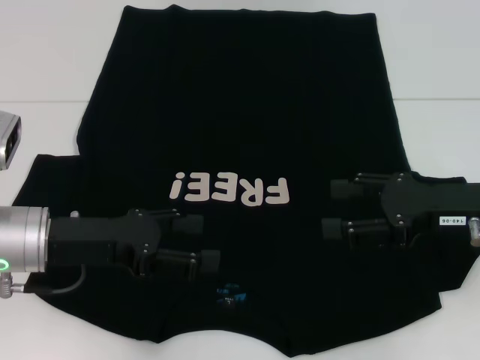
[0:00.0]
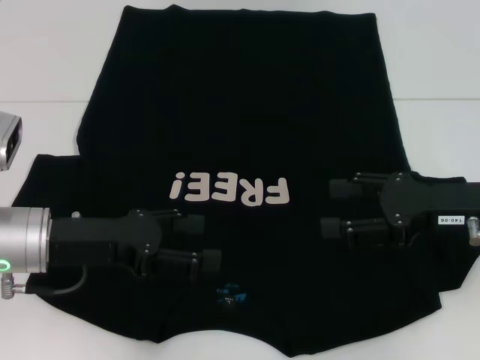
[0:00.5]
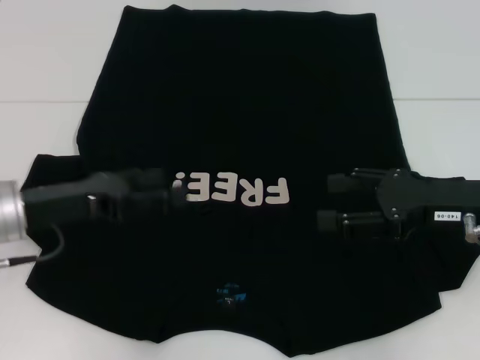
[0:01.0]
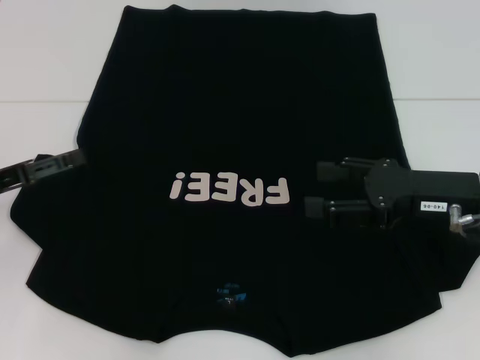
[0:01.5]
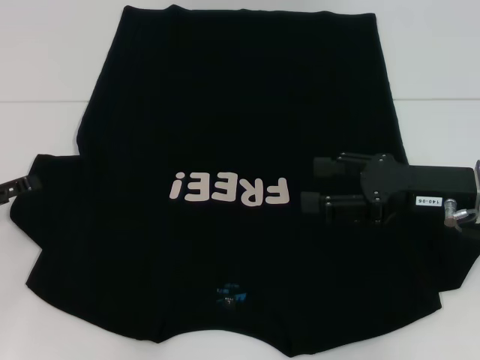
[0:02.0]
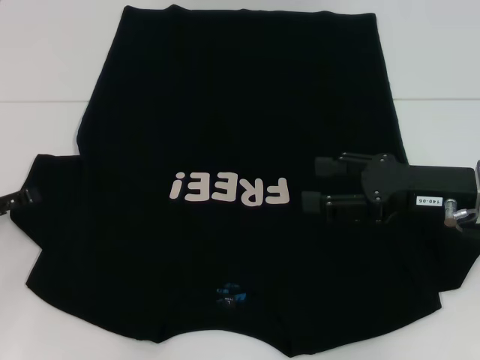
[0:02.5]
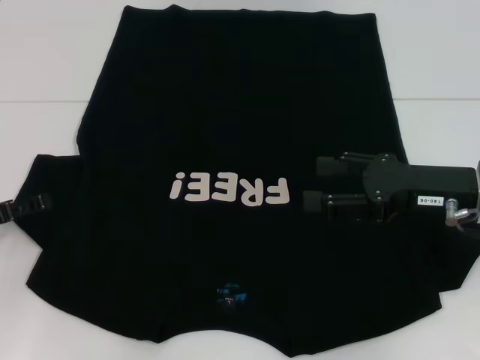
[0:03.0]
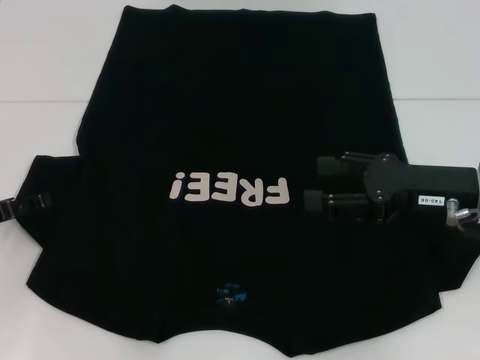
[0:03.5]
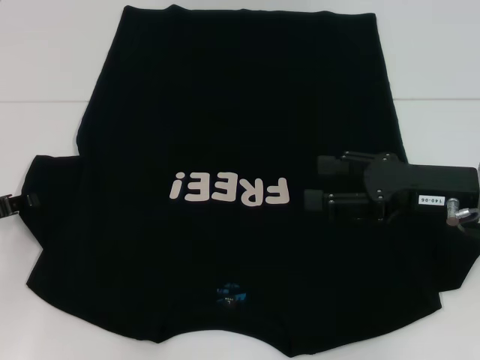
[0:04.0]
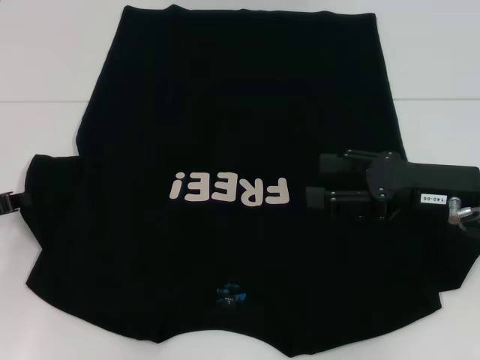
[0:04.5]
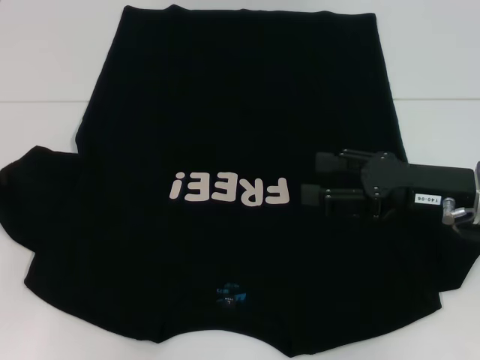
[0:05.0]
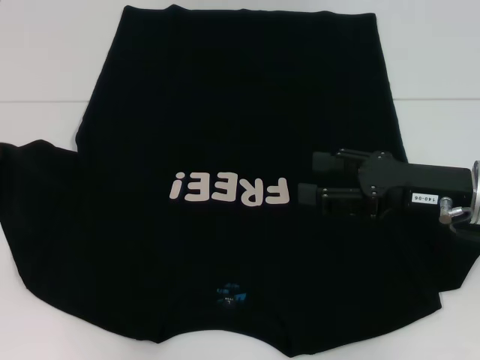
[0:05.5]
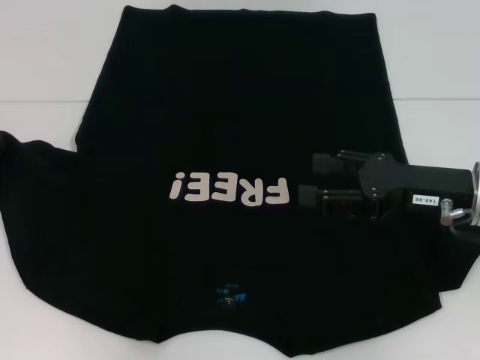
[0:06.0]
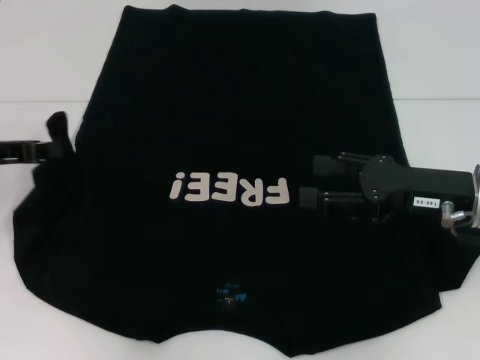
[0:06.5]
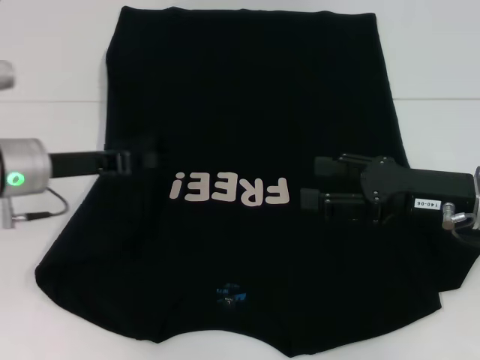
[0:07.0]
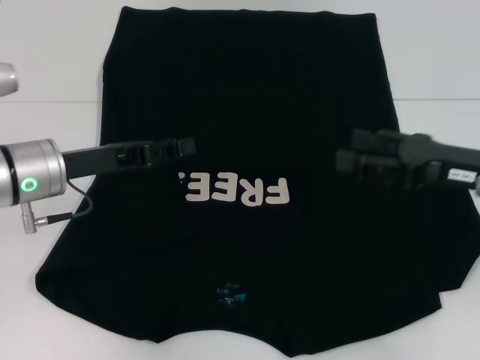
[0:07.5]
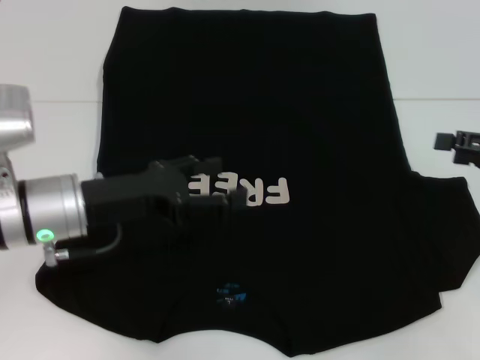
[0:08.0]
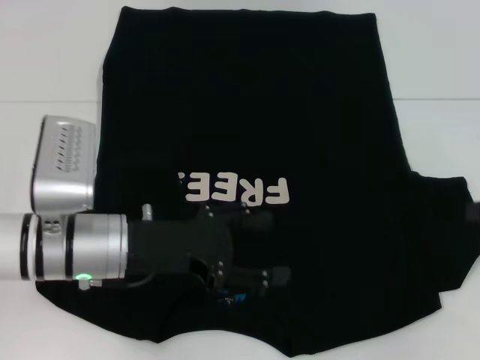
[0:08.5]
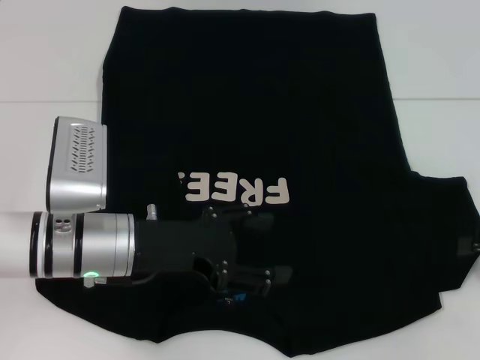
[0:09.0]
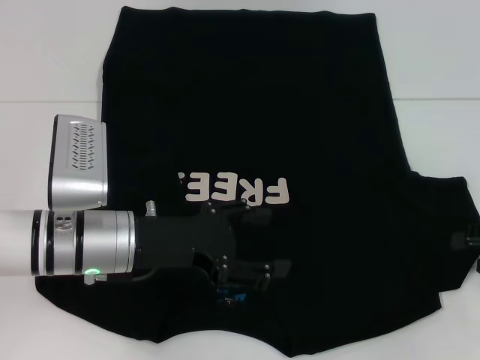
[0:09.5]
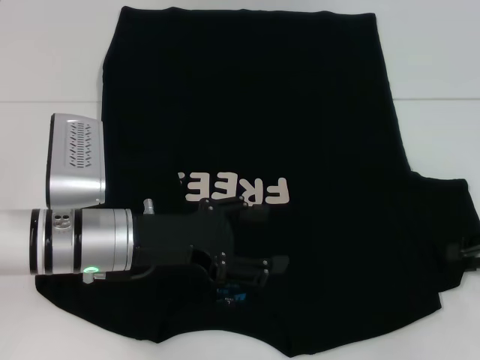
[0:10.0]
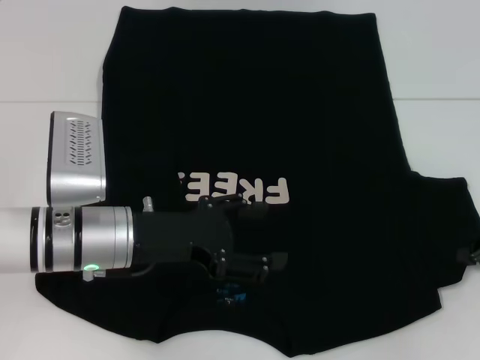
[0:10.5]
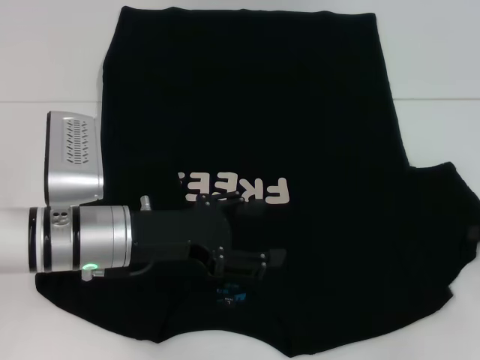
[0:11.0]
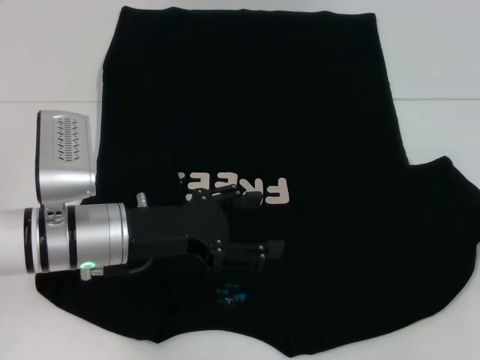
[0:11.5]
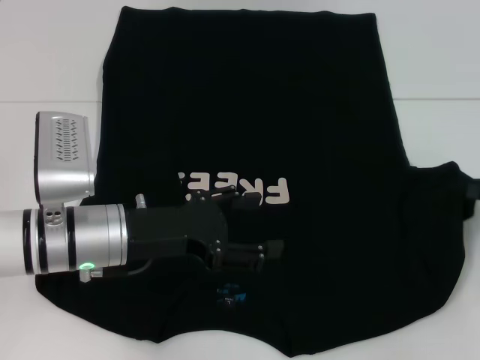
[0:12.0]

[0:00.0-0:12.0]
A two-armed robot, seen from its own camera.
Step, 0:00.0 to 0:08.5: Fold the bottom left sleeve with your left hand.
0:00.0 to 0:02.0: The left gripper heads to the left, covering approximately 15 cm.
0:02.0 to 0:04.0: The grippers stay close to where they were, moving slightly.
0:04.0 to 0:06.0: The left gripper moves forward, roughly 5 cm, and closes.
0:06.0 to 0:08.0: Both grippers move to the right, roughly 15 cm. The left gripper opens its fingers.
0:08.0 to 0:10.0: The right gripper moves about 5 cm.
0:10.0 to 0:12.0: The right gripper closes.

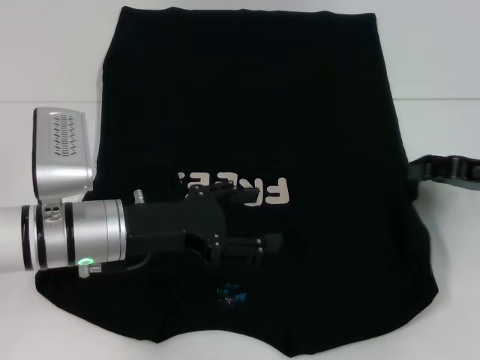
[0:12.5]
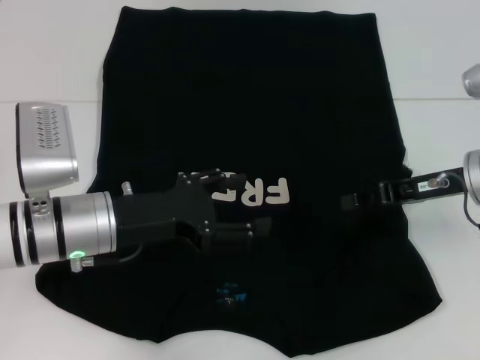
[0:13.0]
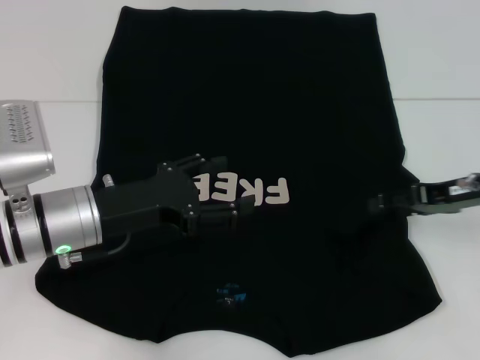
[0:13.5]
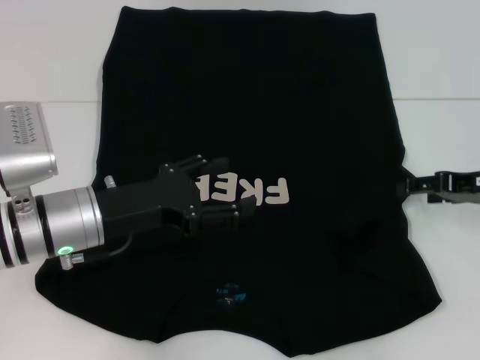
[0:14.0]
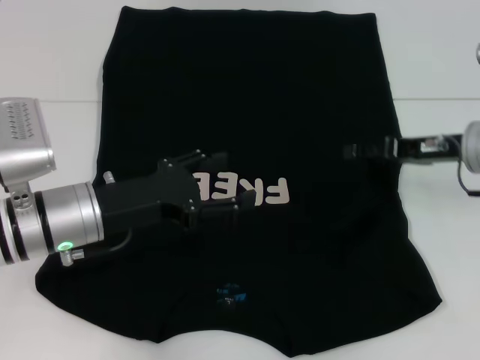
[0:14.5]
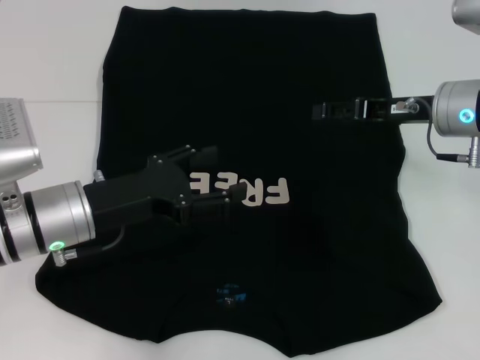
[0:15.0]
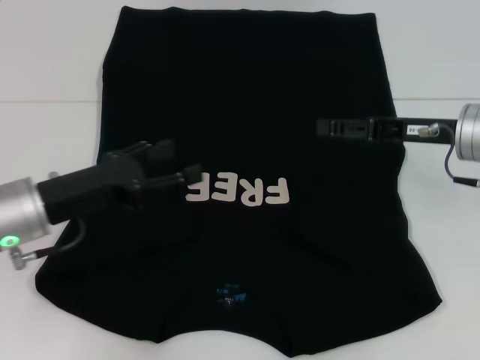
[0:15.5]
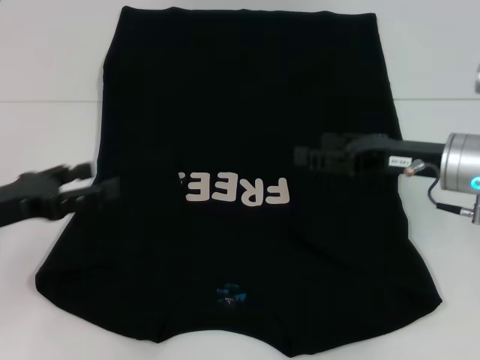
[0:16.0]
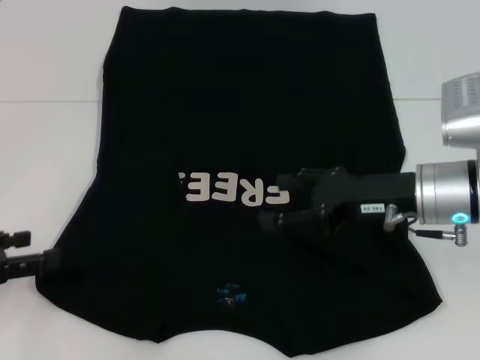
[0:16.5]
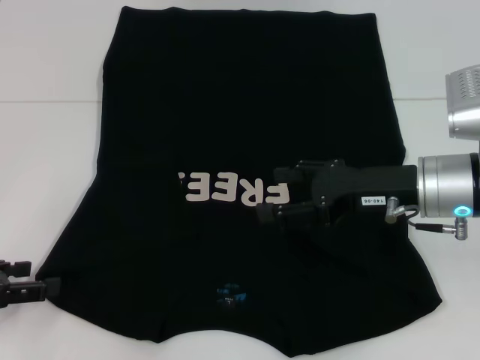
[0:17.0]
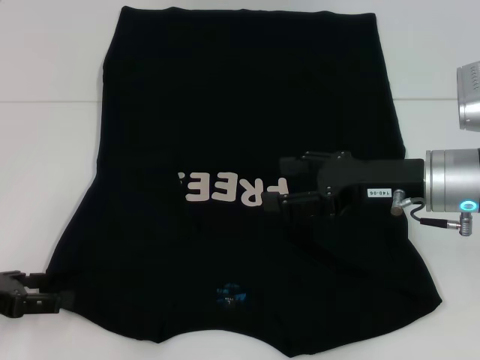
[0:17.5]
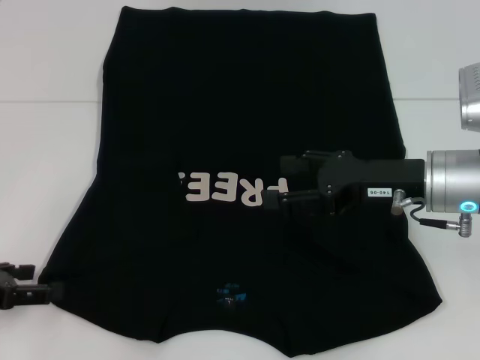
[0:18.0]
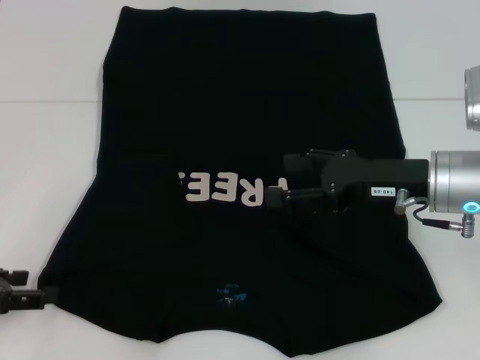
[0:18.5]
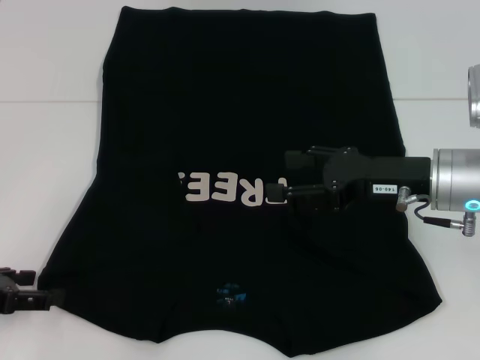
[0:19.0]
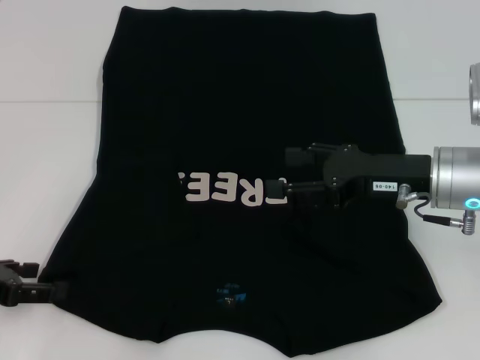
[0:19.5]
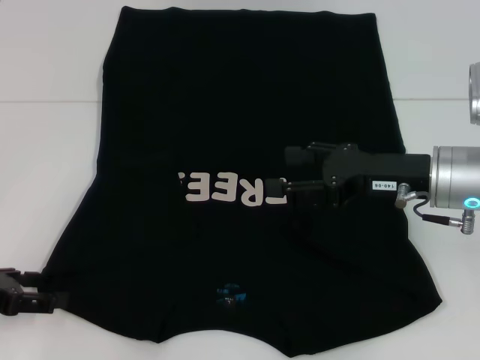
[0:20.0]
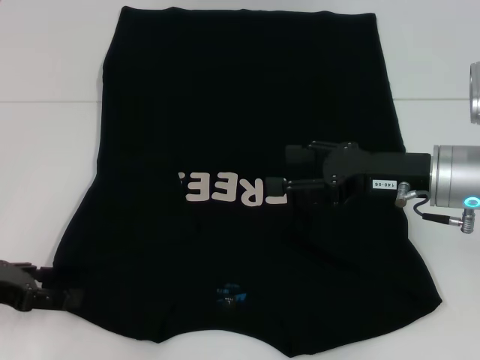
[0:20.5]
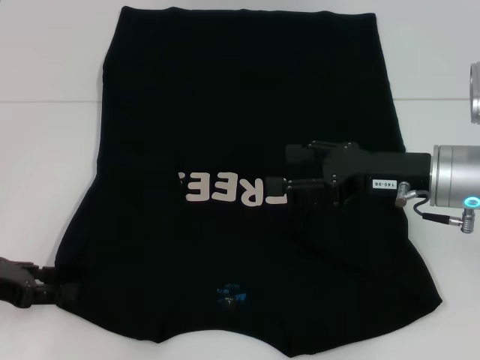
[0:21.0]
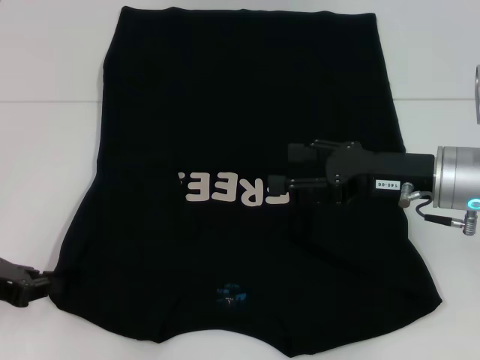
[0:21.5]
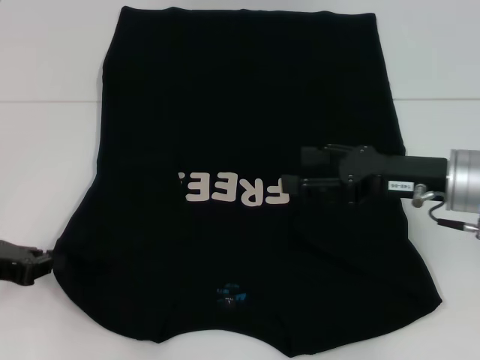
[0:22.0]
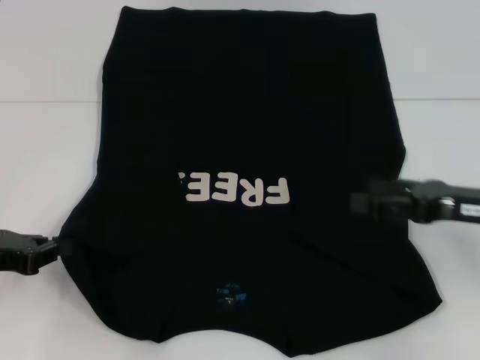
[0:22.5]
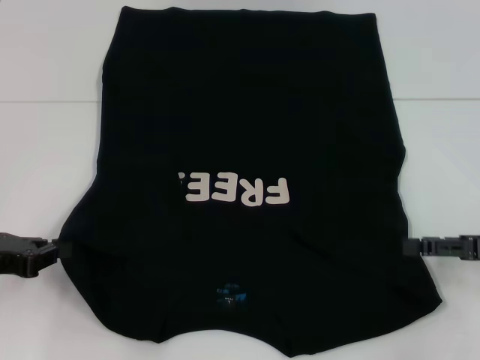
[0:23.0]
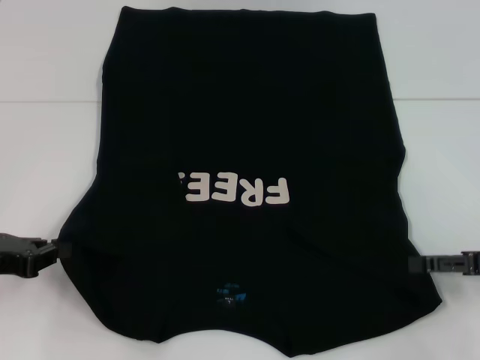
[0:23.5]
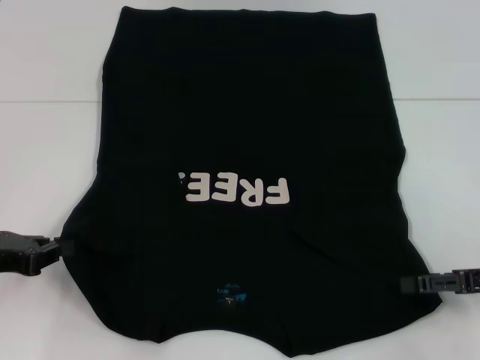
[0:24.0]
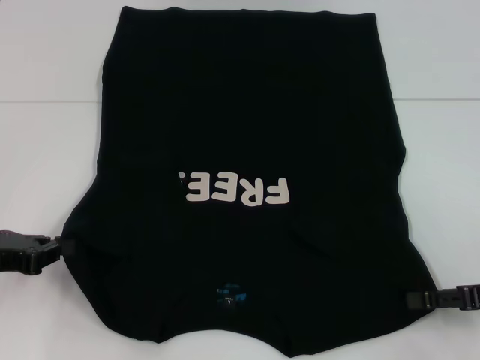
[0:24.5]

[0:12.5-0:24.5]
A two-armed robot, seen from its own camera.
Step, 0:13.5 to 0:22.0: Grab the bottom left corner with your left hand.
0:12.5 to 0:14.5: The right gripper goes left and right, roughly 5 cm each way, reversing 2 times, and opens up.
0:14.5 to 0:16.5: The left gripper moves to the left, roughly 15 cm. Meanwhile the right gripper travels to the left and backward by roughly 10 cm.
0:16.5 to 0:20.5: The grippers move only a little.
0:20.5 to 0:22.5: The right gripper goes roughly 10 cm to the right; the left gripper closes.
0:22.5 to 0:24.5: The right gripper changes place by roughly 10 cm.

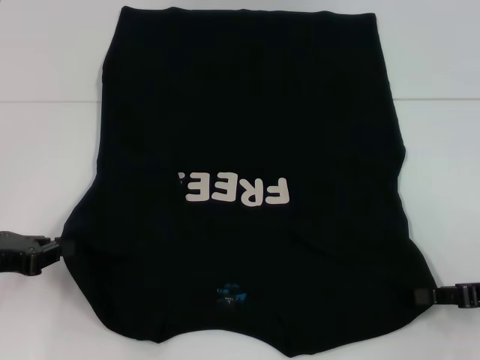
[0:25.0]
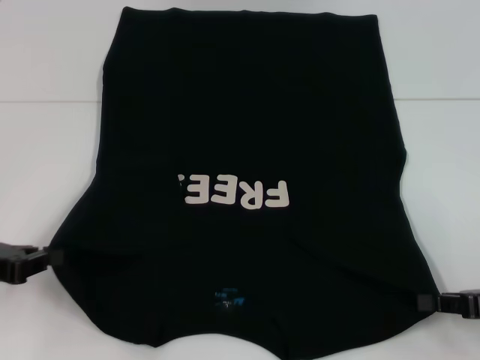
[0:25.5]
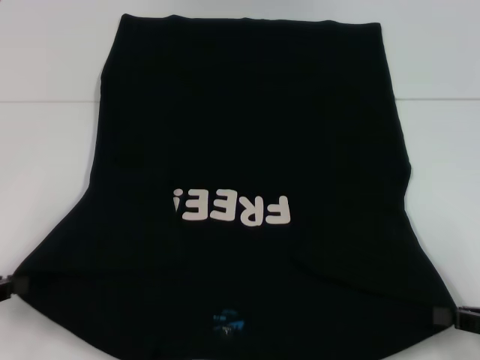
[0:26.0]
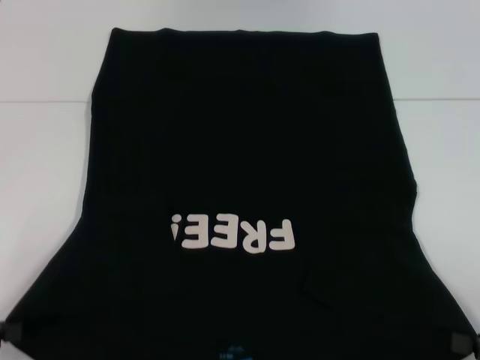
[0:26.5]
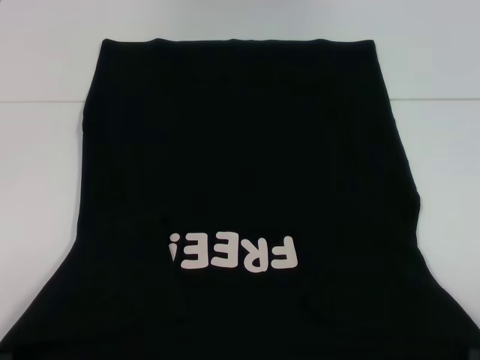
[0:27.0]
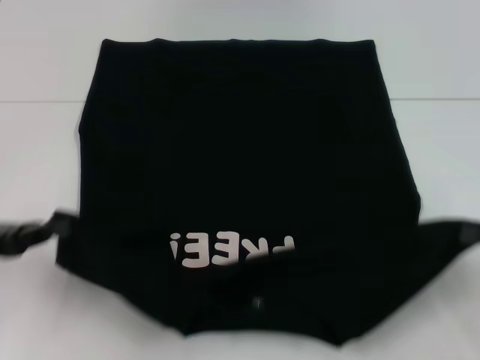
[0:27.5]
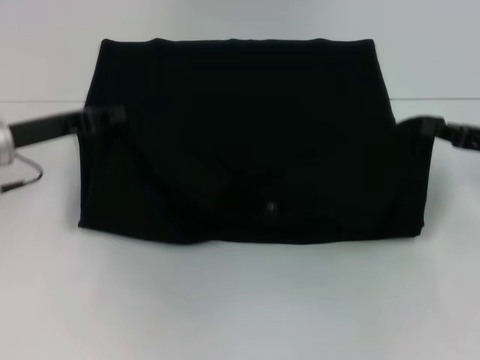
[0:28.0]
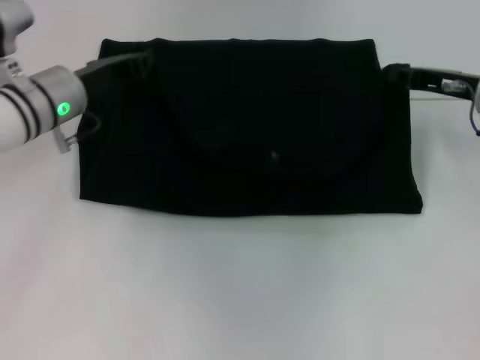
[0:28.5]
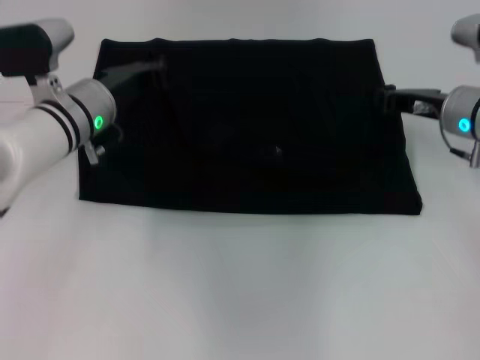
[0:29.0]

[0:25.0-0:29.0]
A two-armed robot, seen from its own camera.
0:25.0 to 0:27.0: The grippers both shift backward by approximately 10 cm. The right gripper closes its fingers.
0:27.0 to 0:29.0: The right gripper travels forward and to the left by roughly 30 cm. Meanwhile the left gripper heads forward and to the right, covering about 35 cm.
